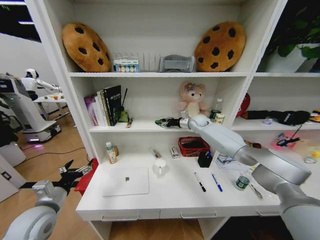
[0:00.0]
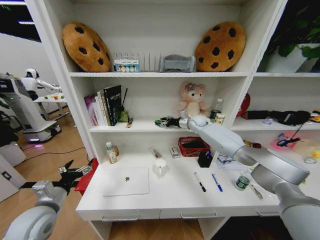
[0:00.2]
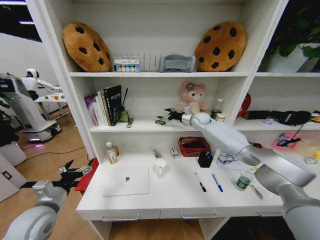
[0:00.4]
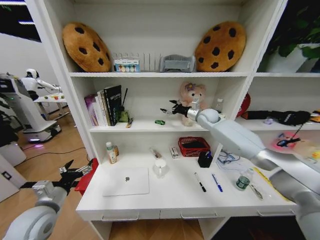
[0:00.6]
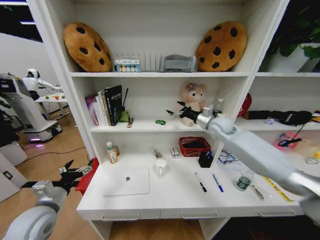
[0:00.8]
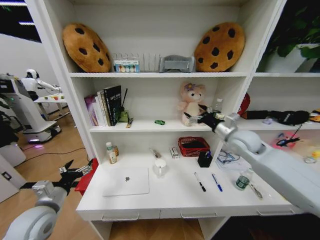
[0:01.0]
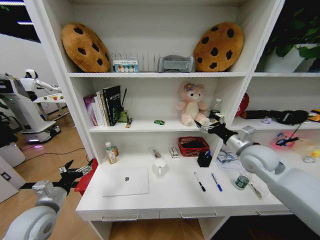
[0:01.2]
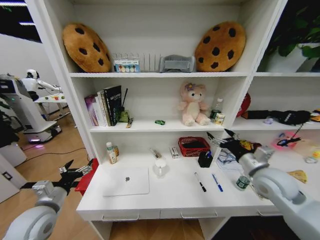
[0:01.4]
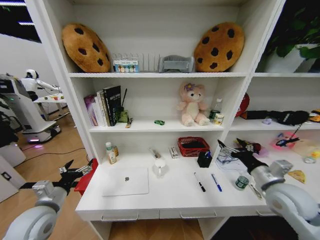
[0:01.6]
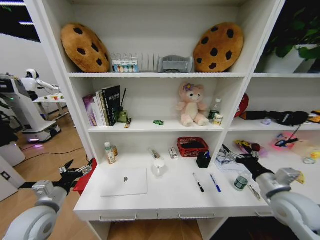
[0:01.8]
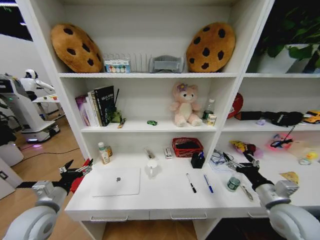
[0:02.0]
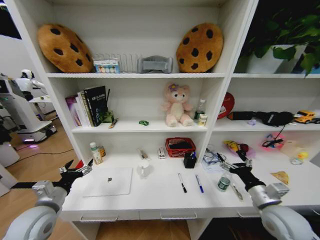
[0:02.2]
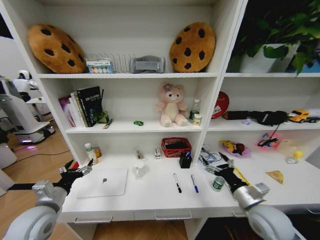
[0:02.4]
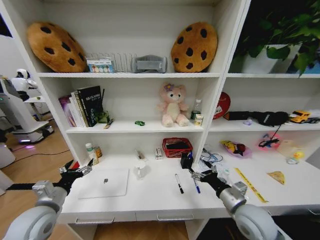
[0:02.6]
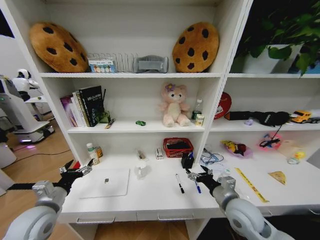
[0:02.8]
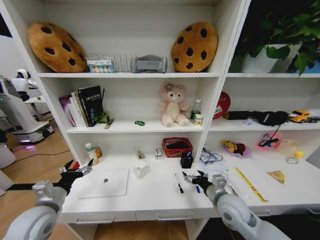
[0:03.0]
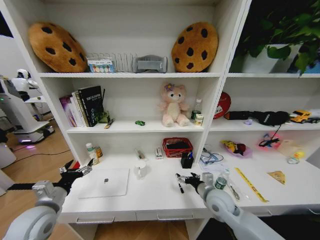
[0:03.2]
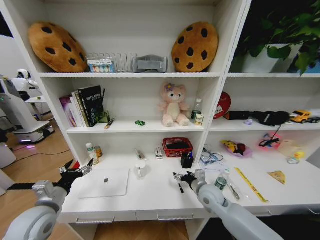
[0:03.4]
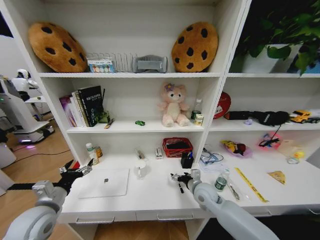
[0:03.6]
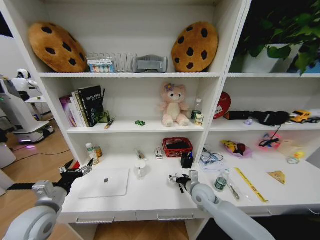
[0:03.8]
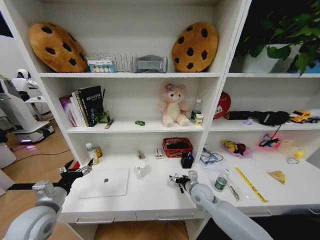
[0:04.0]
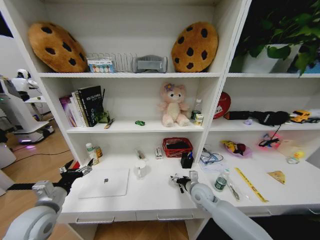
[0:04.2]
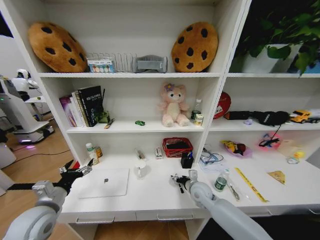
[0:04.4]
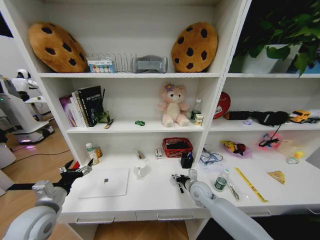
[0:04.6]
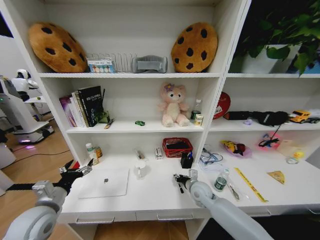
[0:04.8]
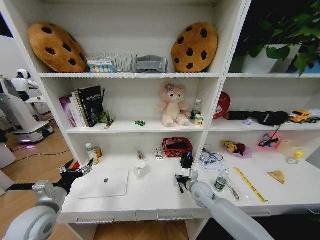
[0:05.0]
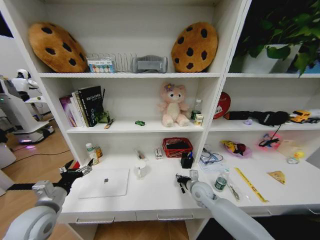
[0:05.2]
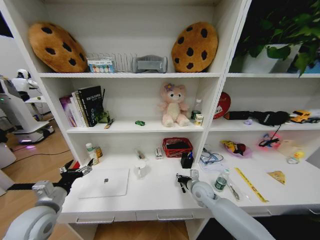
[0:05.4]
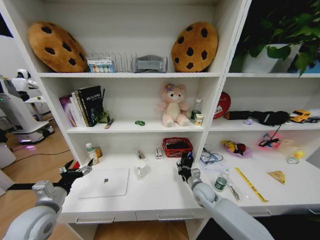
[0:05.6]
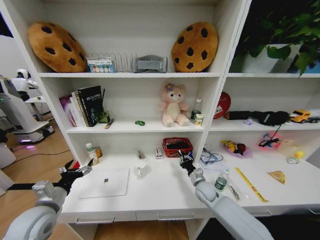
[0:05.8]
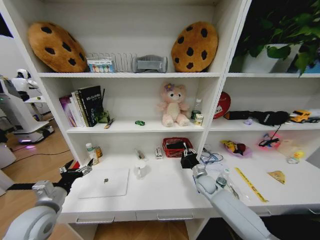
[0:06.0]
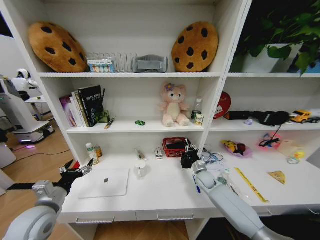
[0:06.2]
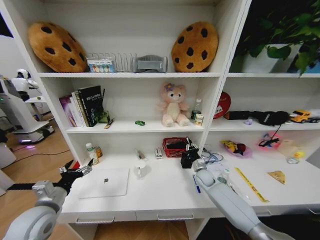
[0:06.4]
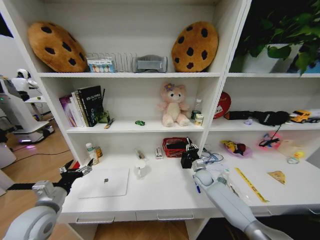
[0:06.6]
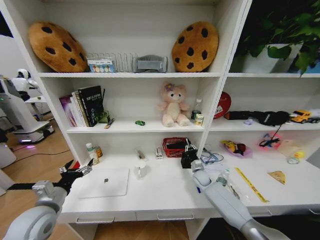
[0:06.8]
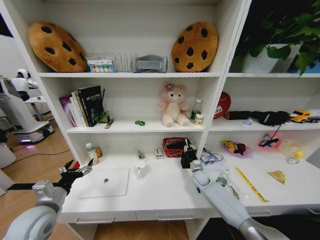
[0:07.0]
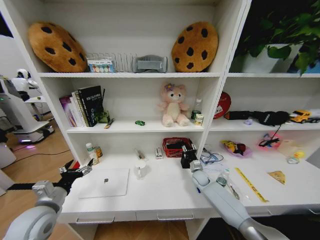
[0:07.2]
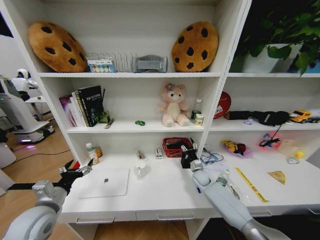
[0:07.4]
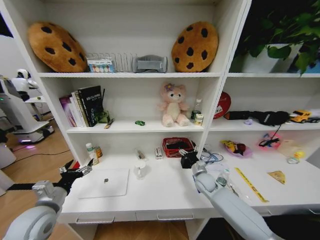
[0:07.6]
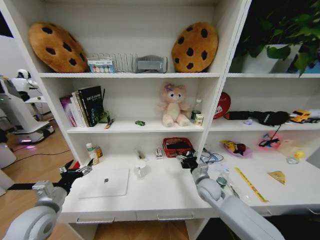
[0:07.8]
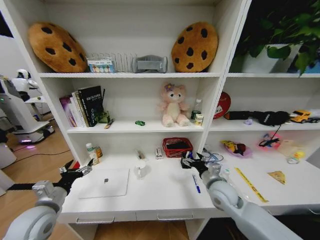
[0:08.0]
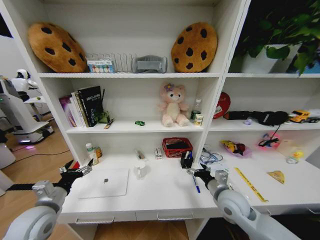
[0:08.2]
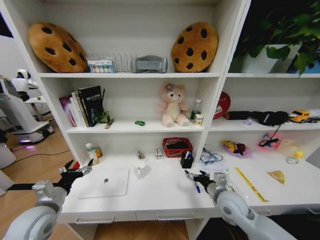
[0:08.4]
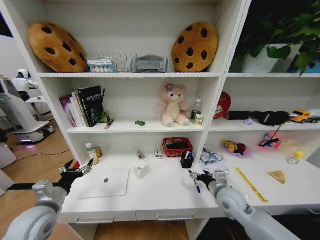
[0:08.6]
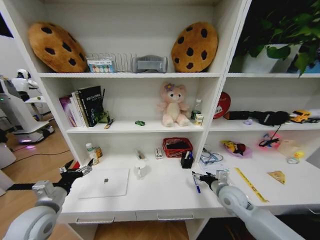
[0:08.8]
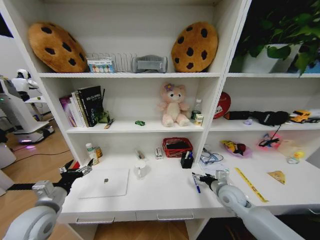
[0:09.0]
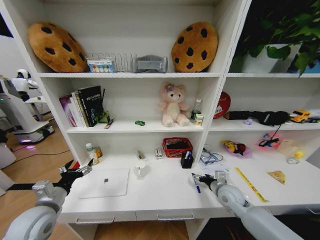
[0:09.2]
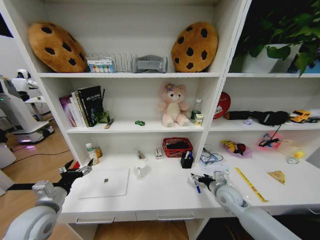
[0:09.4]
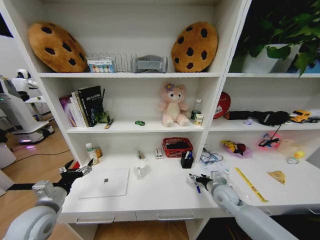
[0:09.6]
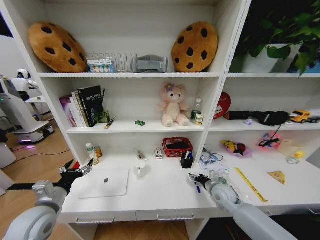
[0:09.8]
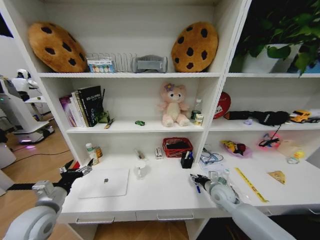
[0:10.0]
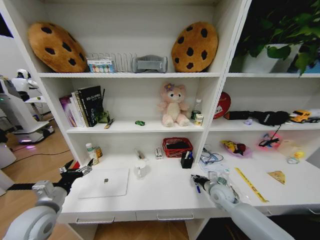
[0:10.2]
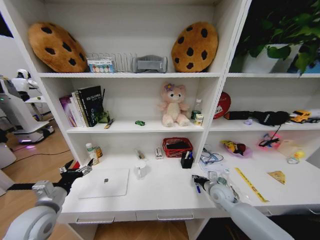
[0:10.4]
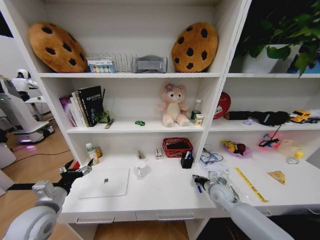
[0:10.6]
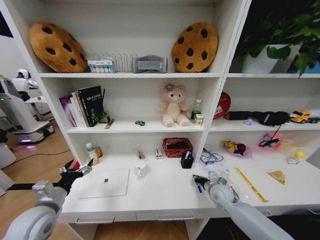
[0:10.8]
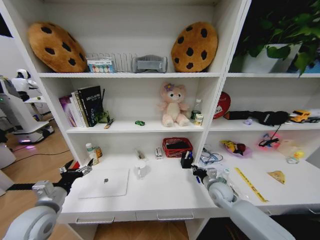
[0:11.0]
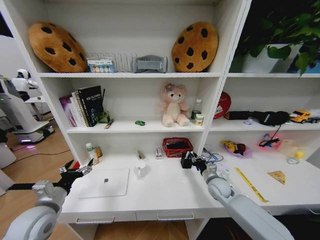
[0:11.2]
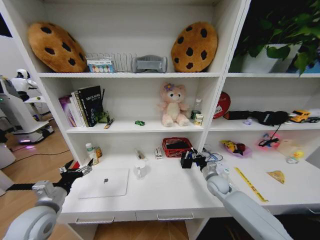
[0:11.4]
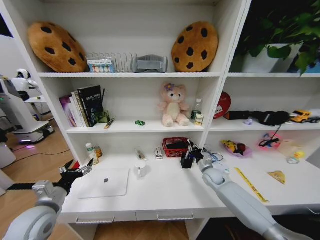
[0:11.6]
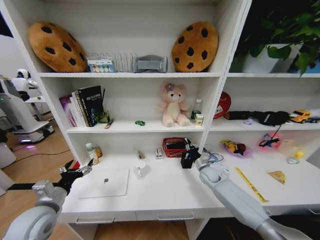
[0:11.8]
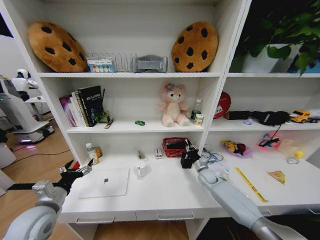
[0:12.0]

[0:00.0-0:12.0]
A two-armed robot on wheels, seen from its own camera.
Task of the whole recording: Organize the objects on the table.
0:00.0 to 0:01.6: The right gripper goes approximately 40 cm backward, and opens.
0:01.6 to 0:03.0: The right gripper goes some 15 cm to the left and downward.
0:03.0 to 0:04.4: The right gripper travels forward, downward and to the left by roughly 15 cm.
0:04.4 to 0:06.0: The right gripper travels forward and to the right by about 10 cm, and closes its fingers.
0:06.0 to 0:07.6: The right gripper opens up.
0:07.6 to 0:09.0: The right gripper moves backward, to the right and upward, approximately 10 cm.
0:09.0 to 0:10.4: The right gripper changes place by about 5 cm, and closes.
0:10.4 to 0:12.0: The right gripper goes approximately 10 cm forward.

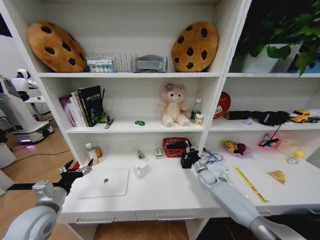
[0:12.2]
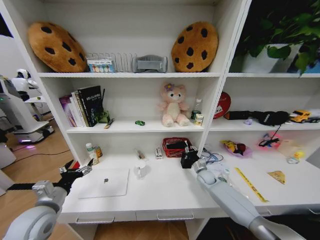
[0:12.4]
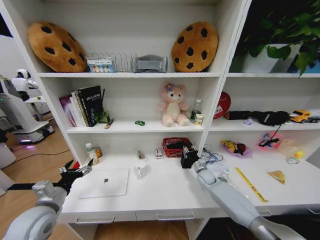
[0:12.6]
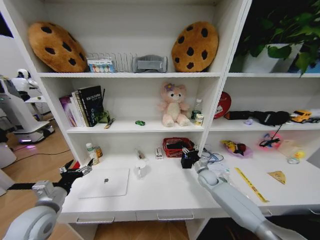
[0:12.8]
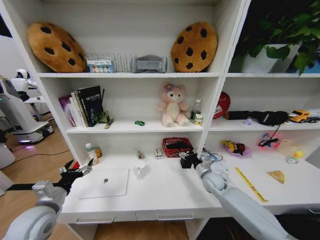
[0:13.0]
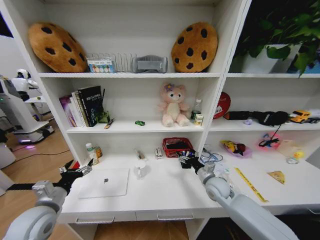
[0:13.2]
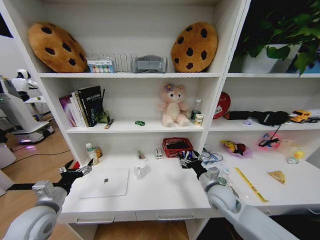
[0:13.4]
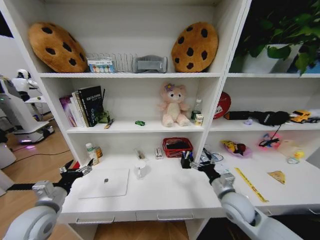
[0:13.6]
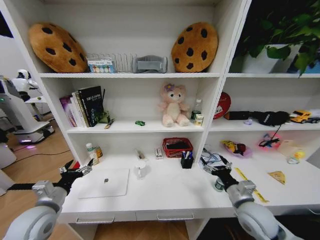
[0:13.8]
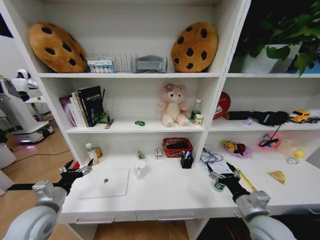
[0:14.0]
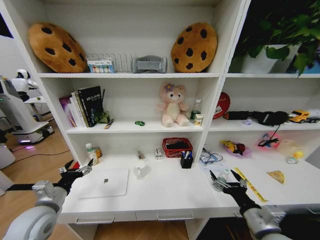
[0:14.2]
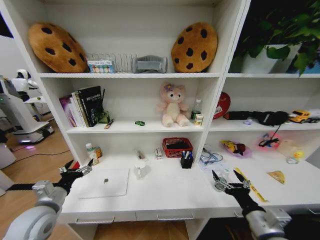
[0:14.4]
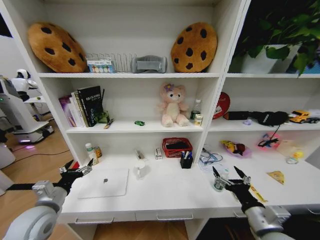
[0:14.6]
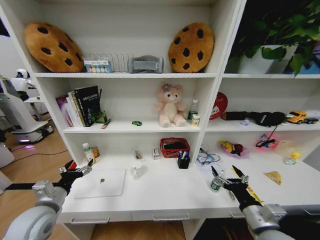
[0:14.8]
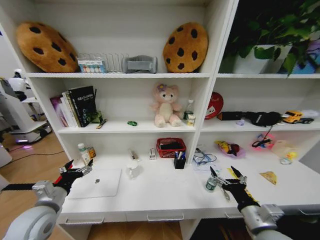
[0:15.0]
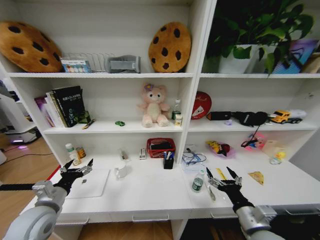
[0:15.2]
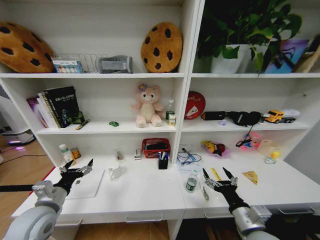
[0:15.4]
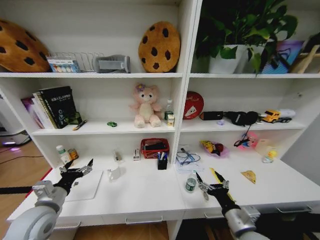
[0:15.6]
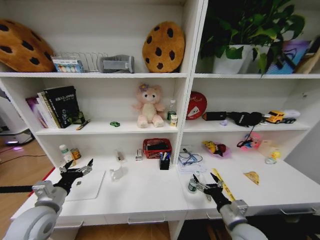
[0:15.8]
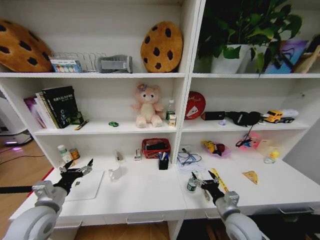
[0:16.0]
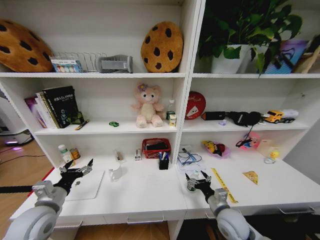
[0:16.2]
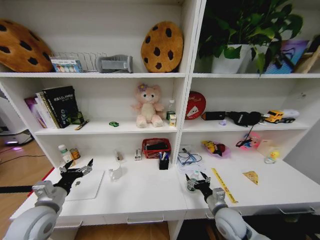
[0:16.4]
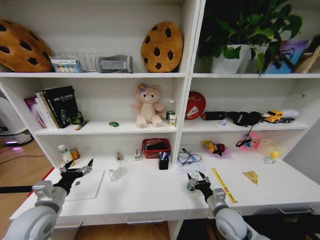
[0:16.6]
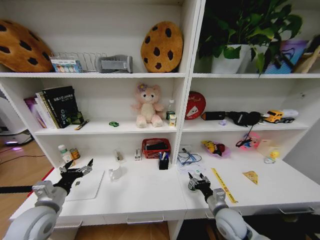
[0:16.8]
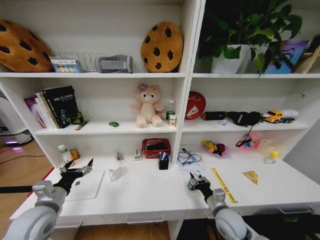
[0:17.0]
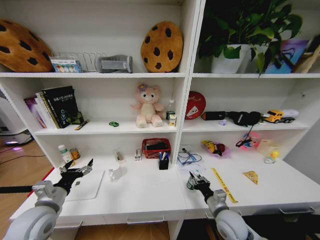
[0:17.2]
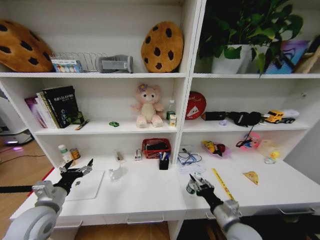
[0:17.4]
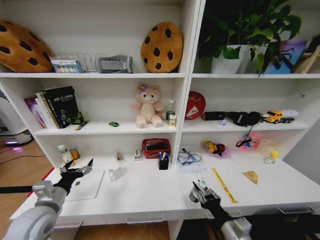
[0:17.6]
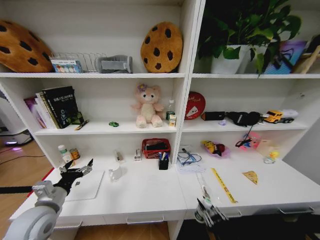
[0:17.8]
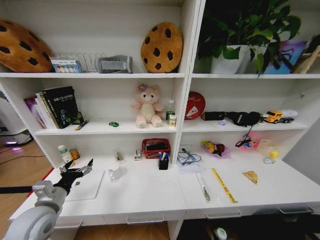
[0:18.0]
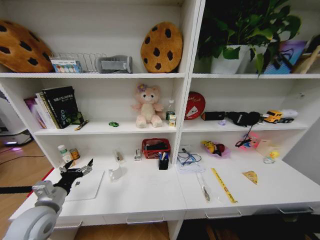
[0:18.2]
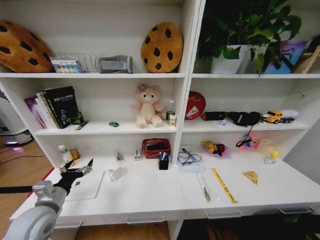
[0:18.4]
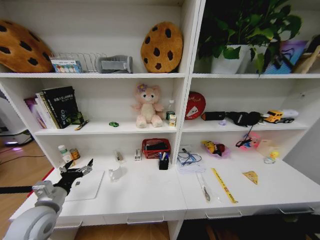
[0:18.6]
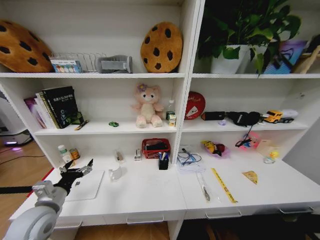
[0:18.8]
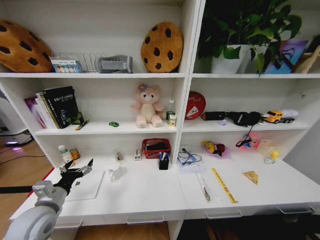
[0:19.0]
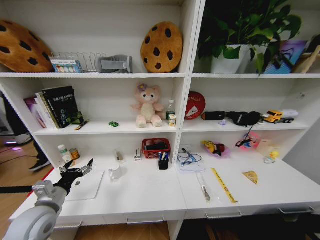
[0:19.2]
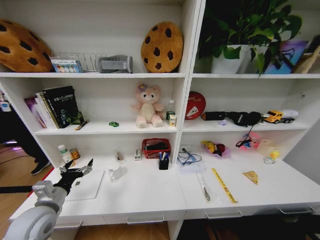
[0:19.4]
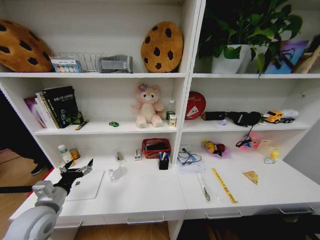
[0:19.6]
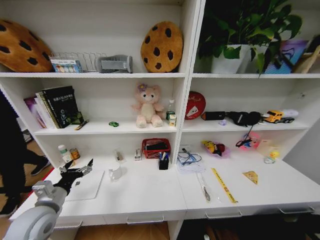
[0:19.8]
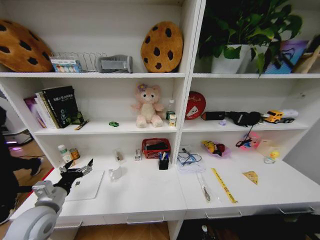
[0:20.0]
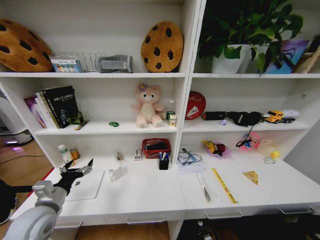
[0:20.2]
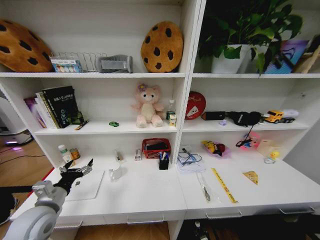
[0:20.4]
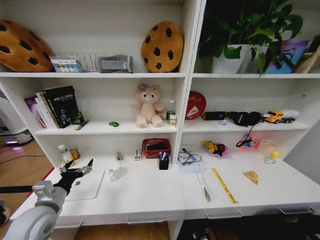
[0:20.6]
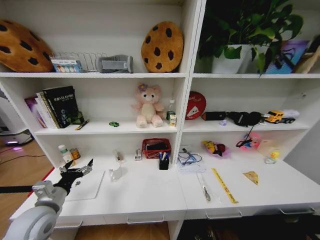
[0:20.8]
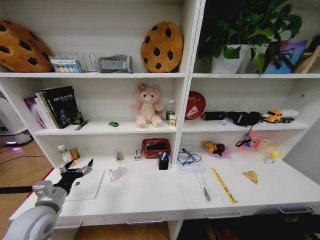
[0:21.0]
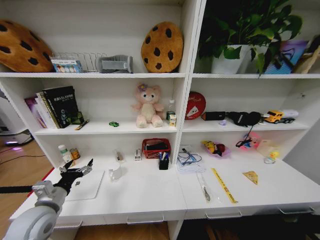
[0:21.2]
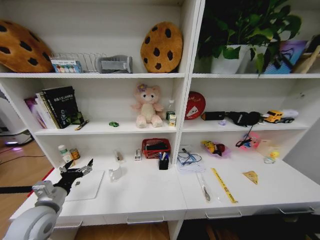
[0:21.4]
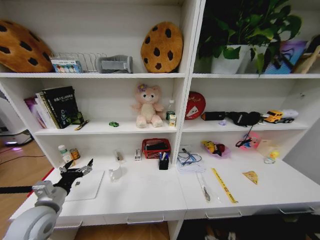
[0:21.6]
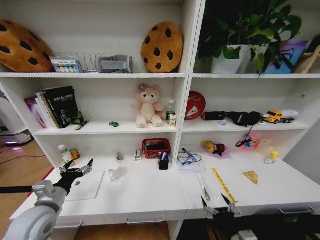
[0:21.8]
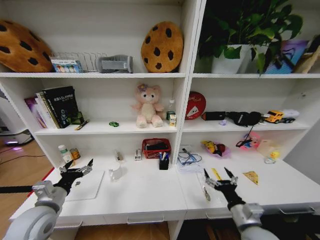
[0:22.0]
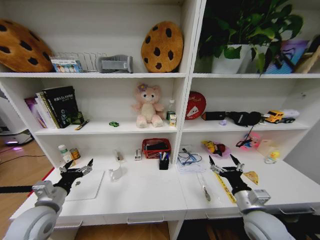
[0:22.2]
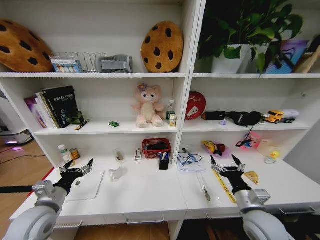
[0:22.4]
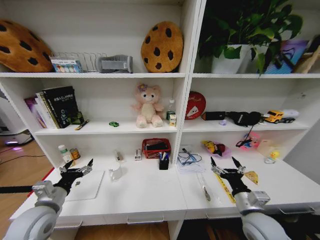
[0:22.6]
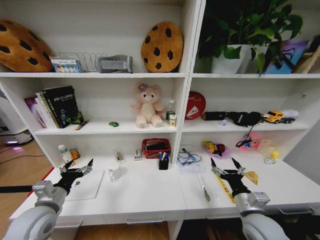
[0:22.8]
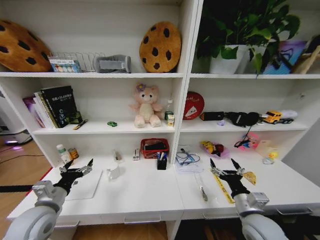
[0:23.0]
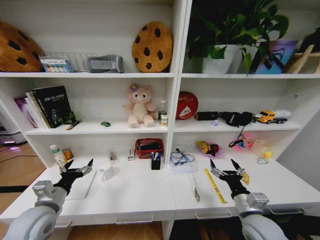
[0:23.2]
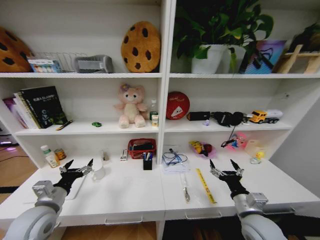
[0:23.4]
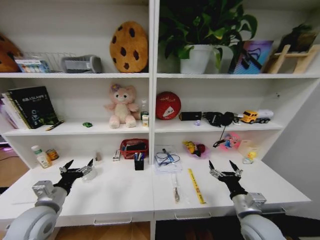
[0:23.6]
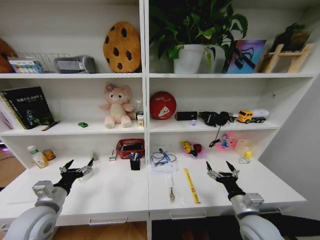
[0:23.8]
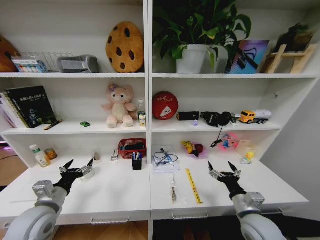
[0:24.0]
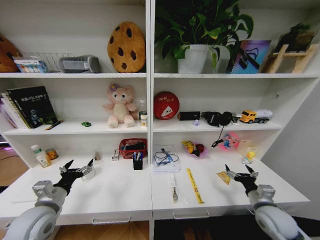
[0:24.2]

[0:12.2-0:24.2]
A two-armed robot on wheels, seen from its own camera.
Task of the whole recording: Organize the objects on the table.
0:12.2 to 0:13.8: The right gripper moves backward and upward, roughly 25 cm, and opens.
0:13.8 to 0:15.2: The right gripper is displaced backward by about 10 cm.
0:15.2 to 0:16.6: The right gripper goes approximately 15 cm downward and forward.
0:16.6 to 0:18.2: The right gripper is displaced backward by approximately 30 cm, and closes up.
0:21.2 to 0:22.6: The right gripper is displaced upward and forward by about 35 cm.
0:22.6 to 0:24.2: The right gripper travels to the right by roughly 5 cm.
